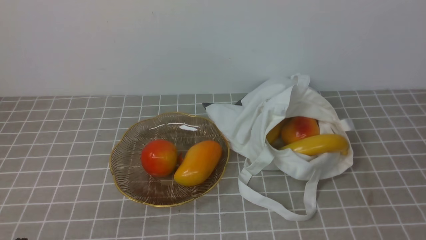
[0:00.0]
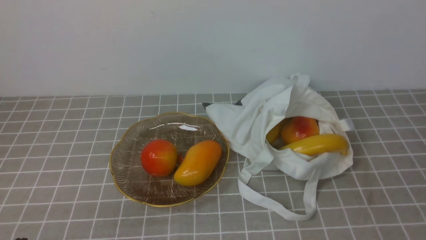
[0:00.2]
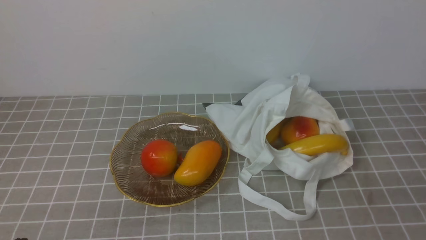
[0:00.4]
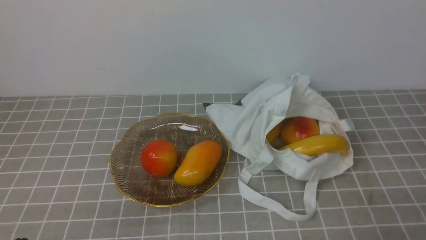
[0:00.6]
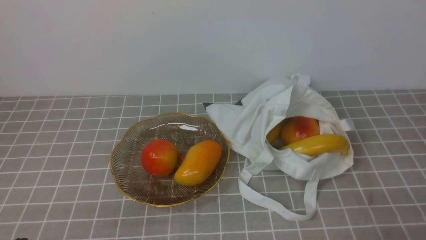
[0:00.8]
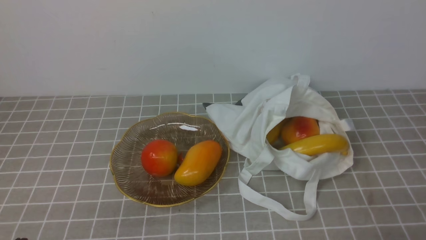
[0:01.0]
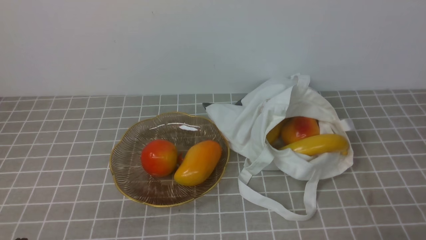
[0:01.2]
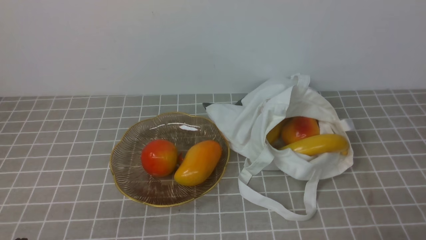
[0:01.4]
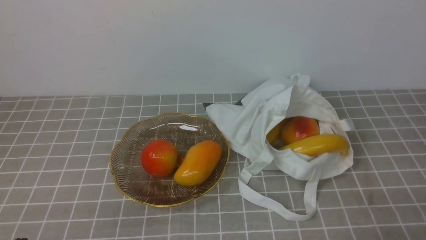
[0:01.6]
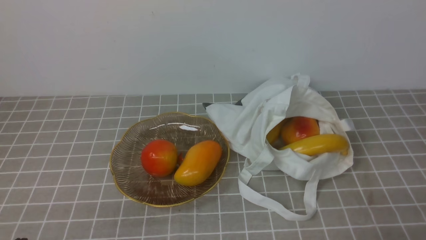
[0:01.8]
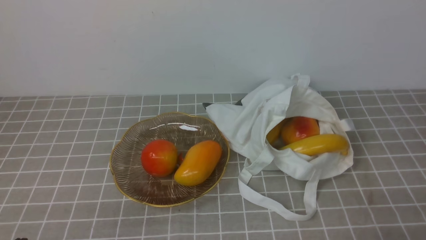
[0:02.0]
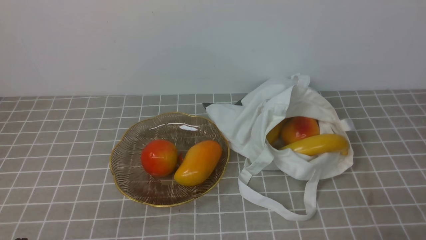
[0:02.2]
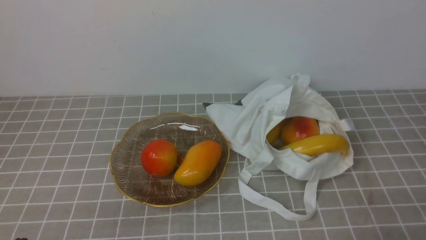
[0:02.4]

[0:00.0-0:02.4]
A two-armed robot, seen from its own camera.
0:01.2 to 0:02.4: Both grippers stay put.
